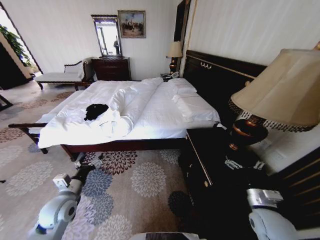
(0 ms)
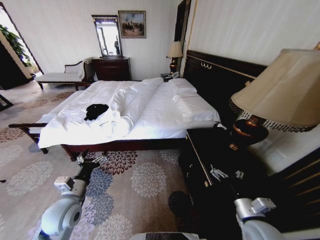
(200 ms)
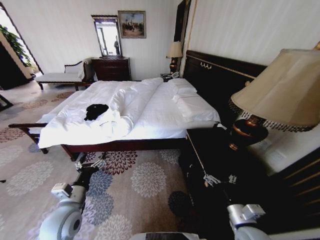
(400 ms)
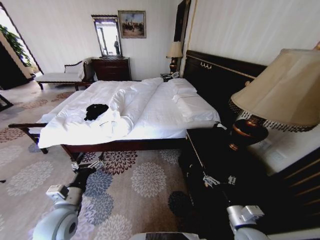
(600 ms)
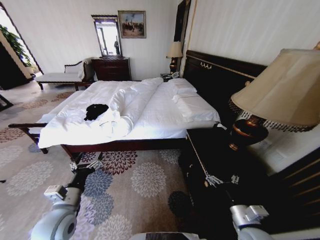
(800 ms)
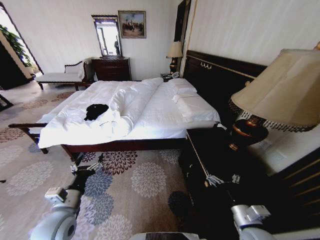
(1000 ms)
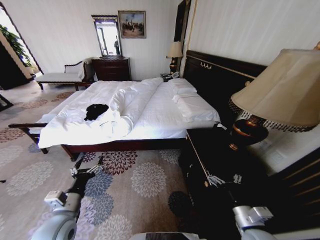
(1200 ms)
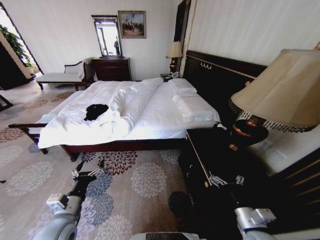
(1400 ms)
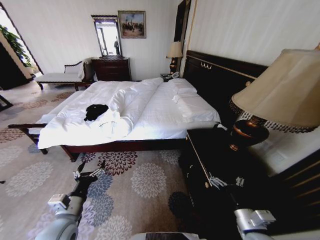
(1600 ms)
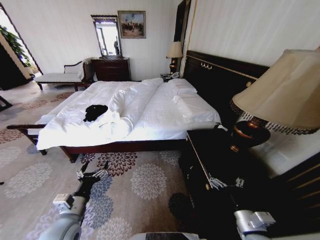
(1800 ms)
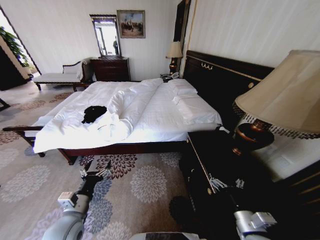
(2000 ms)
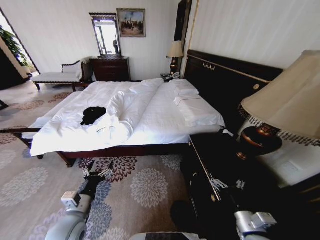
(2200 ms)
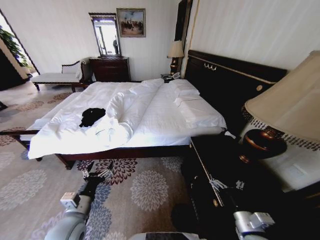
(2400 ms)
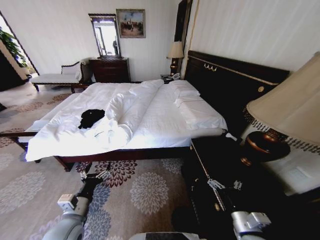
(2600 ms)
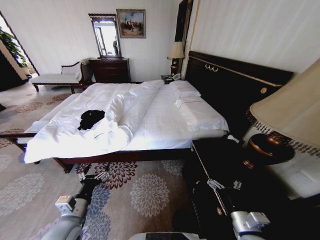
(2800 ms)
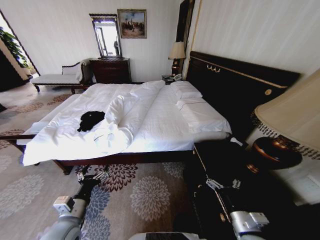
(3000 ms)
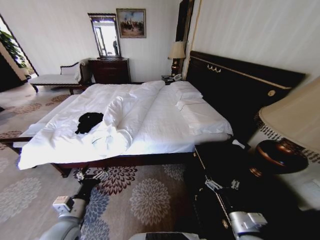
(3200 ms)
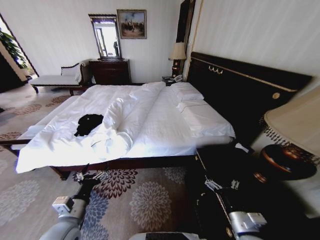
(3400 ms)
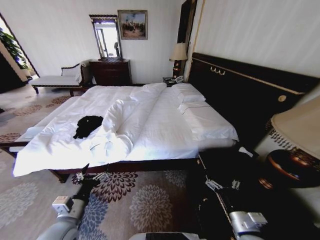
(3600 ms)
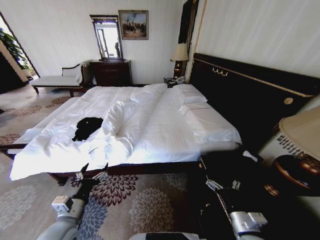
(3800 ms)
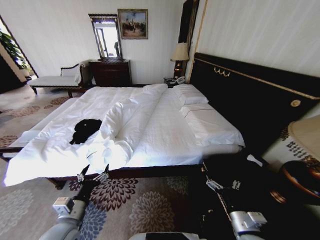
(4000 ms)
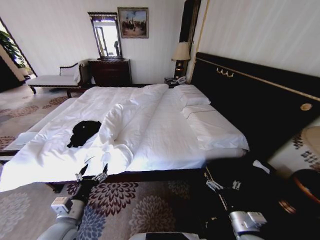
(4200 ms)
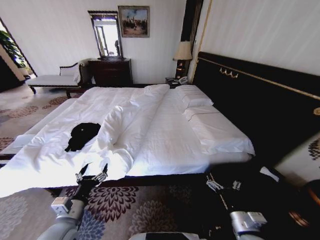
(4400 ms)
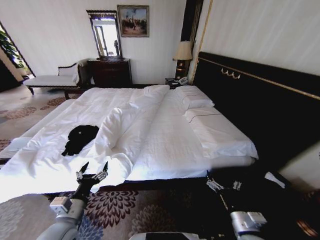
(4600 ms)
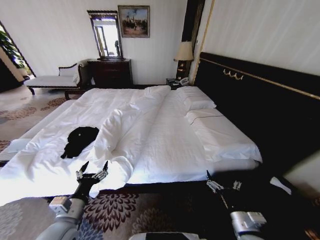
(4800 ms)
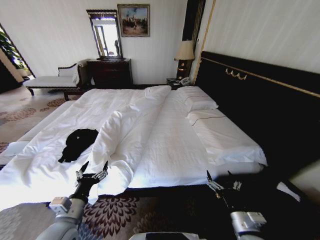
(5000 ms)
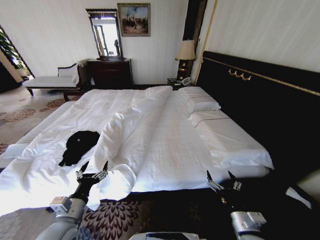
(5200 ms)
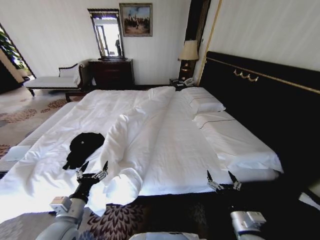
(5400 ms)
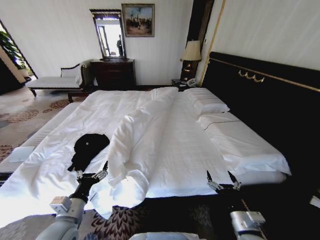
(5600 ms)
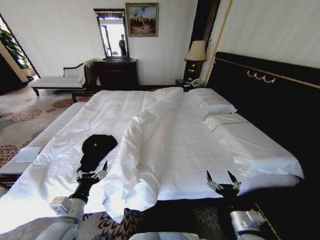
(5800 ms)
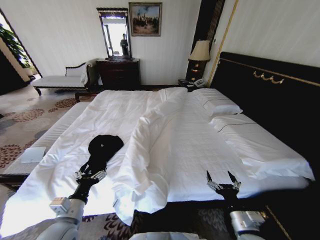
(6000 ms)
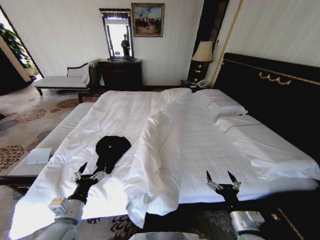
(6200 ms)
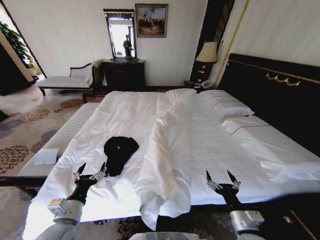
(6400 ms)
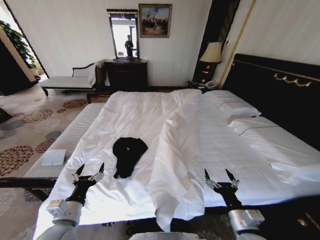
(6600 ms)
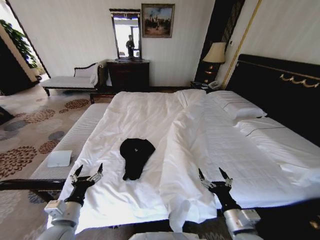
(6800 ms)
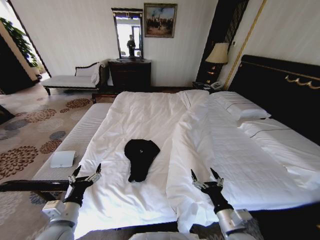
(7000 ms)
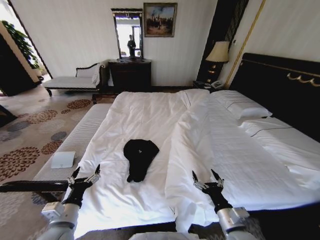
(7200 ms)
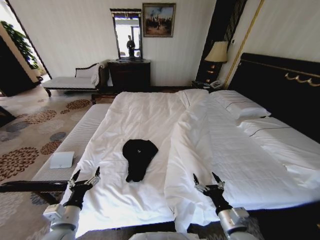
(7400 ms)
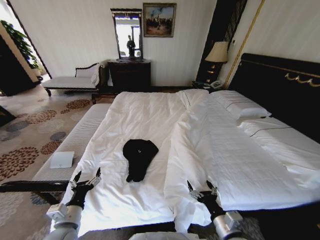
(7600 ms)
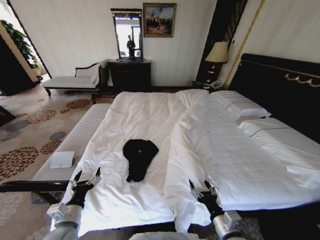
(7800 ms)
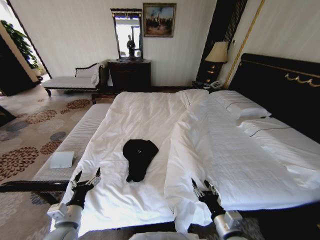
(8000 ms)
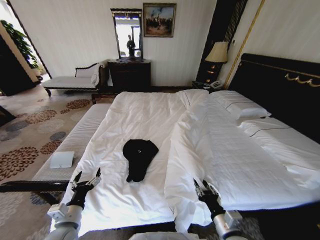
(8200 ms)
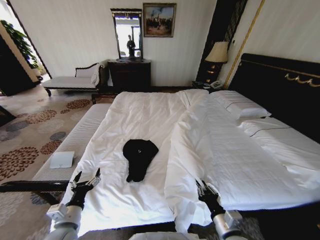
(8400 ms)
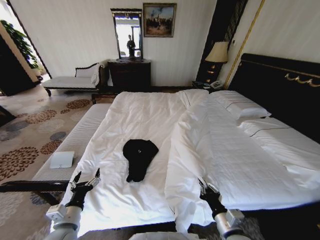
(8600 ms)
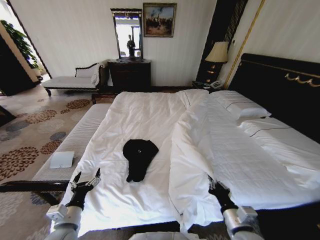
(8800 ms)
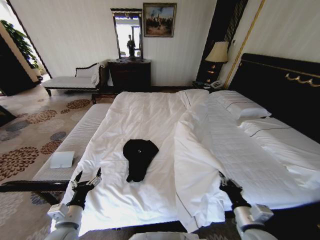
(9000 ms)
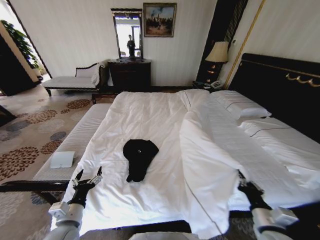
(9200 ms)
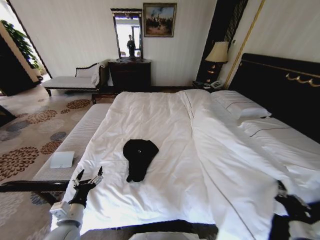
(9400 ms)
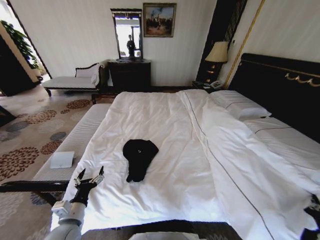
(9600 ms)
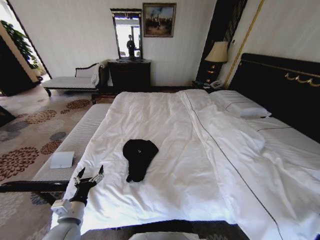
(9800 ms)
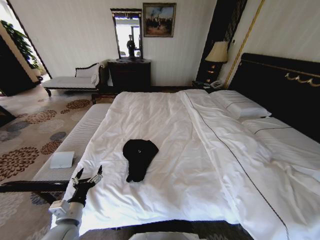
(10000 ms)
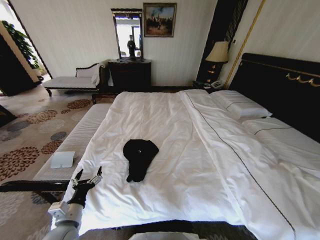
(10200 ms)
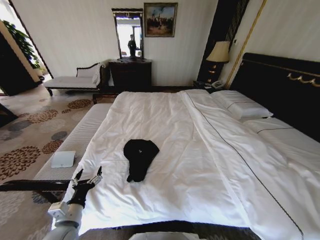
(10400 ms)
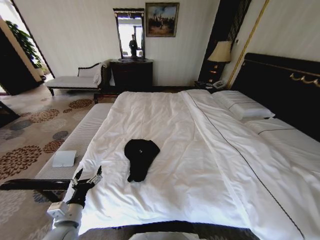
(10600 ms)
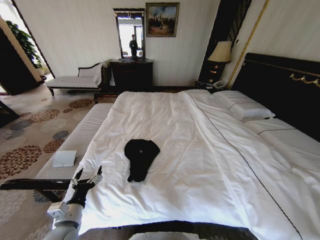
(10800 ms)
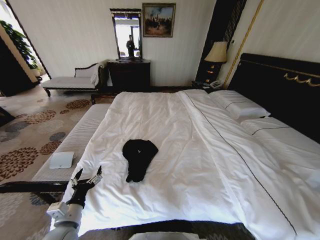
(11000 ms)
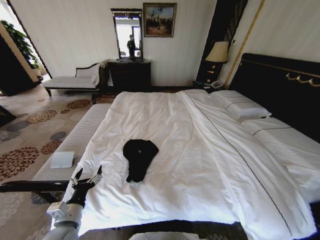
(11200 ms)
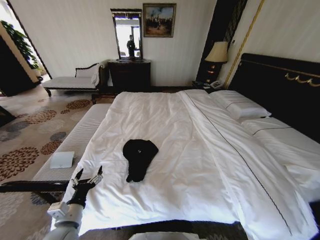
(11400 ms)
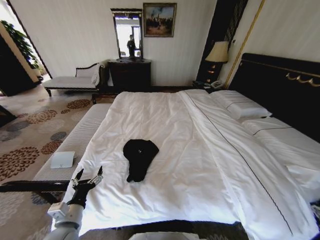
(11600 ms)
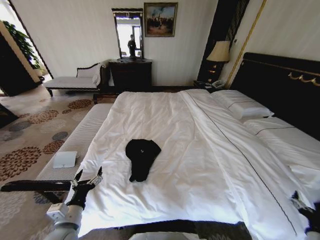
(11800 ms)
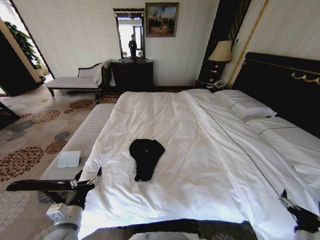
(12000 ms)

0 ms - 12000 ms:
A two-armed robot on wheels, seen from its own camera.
Task of the whole recording: Fold the clothes on the bed.
7600 ms - 9000 ms: The right gripper shifts some 5 cm to the right, and closes.
9000 ms - 10400 ms: The right gripper goes about 30 cm to the right.
10400 ms - 12000 ms: The right gripper moves to the left, some 15 cm, and opens up.

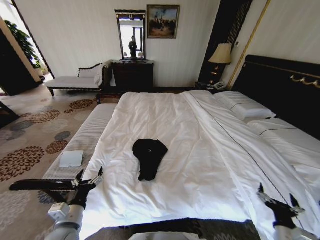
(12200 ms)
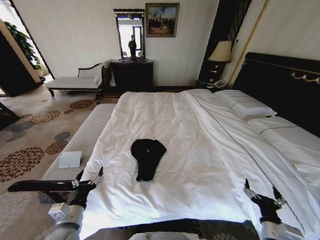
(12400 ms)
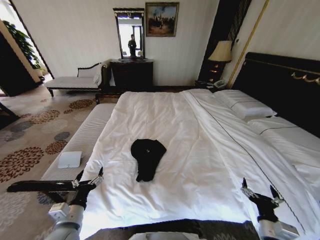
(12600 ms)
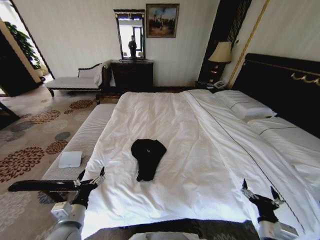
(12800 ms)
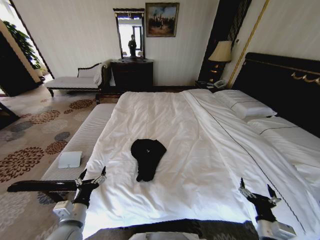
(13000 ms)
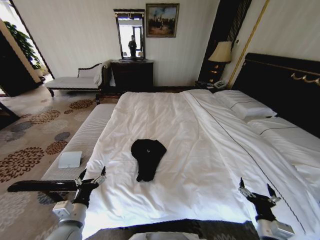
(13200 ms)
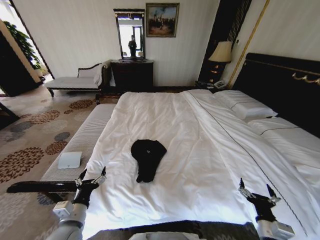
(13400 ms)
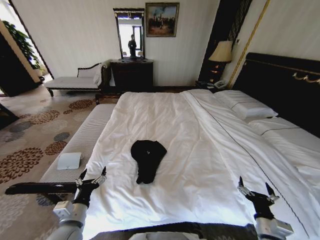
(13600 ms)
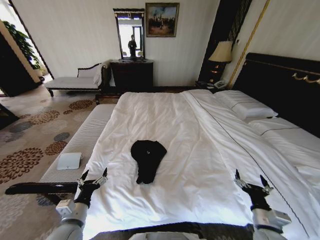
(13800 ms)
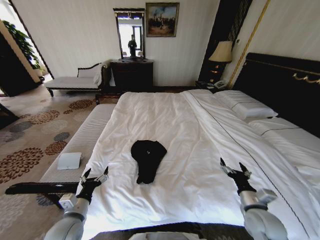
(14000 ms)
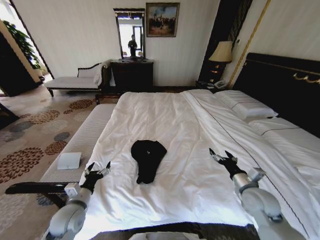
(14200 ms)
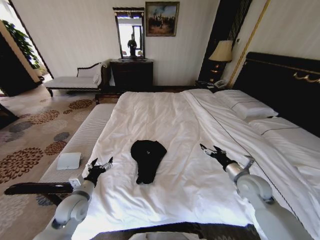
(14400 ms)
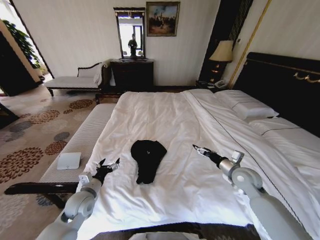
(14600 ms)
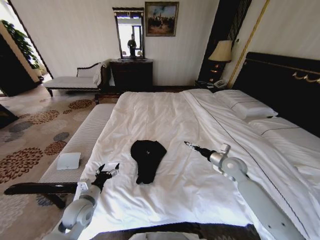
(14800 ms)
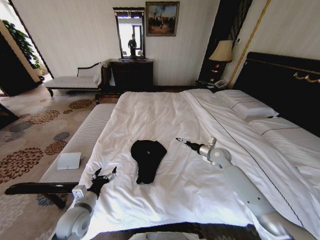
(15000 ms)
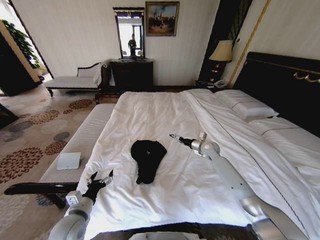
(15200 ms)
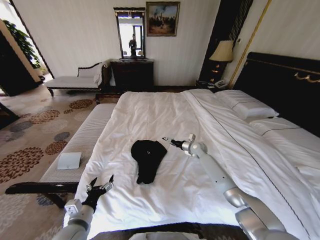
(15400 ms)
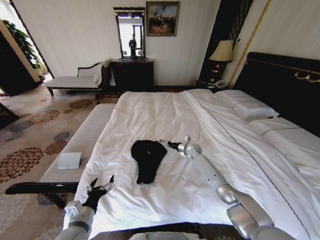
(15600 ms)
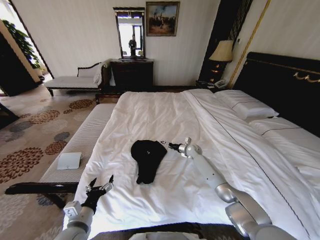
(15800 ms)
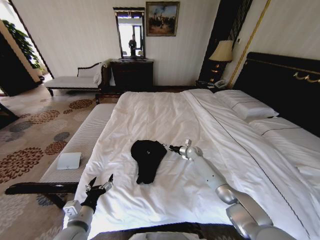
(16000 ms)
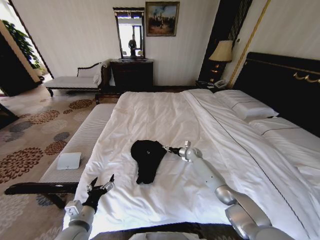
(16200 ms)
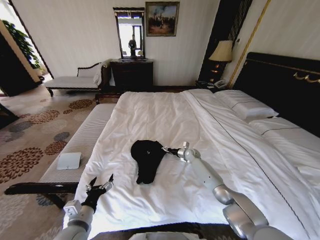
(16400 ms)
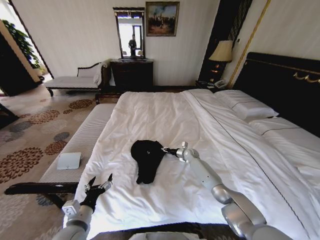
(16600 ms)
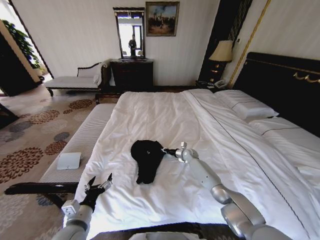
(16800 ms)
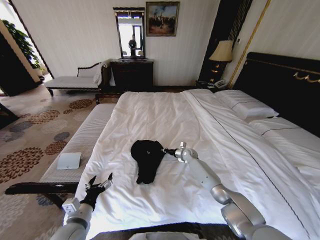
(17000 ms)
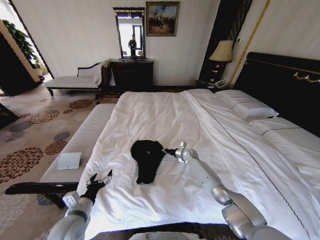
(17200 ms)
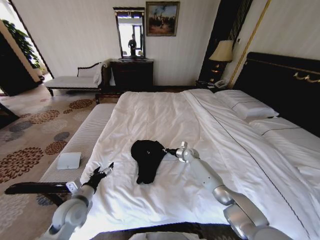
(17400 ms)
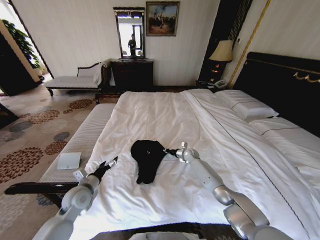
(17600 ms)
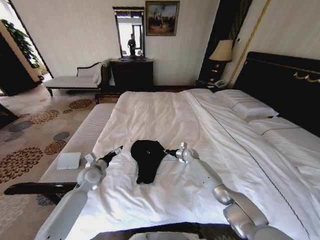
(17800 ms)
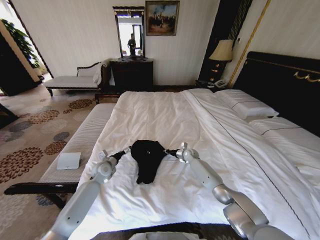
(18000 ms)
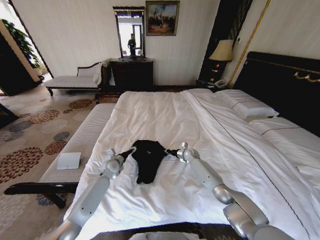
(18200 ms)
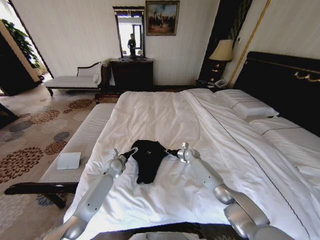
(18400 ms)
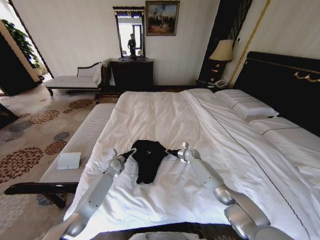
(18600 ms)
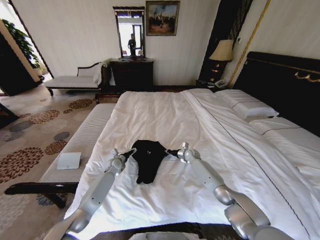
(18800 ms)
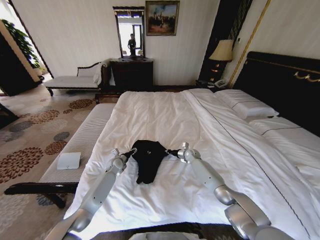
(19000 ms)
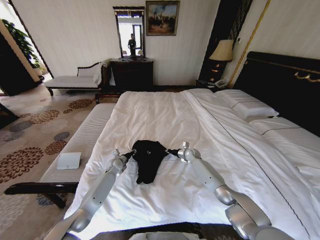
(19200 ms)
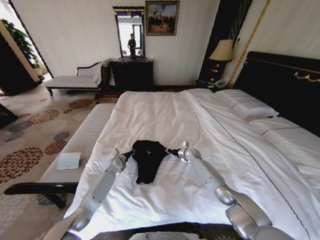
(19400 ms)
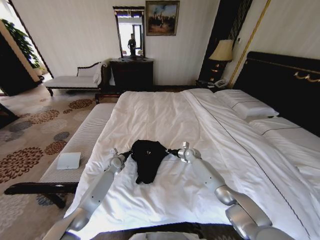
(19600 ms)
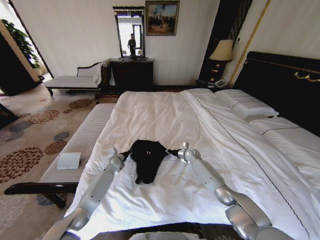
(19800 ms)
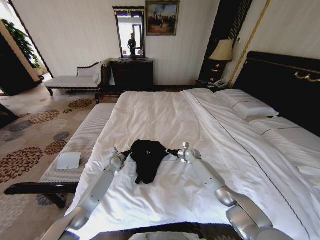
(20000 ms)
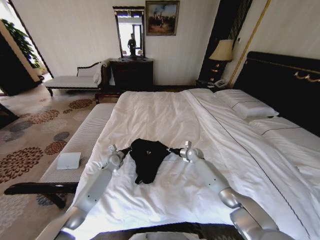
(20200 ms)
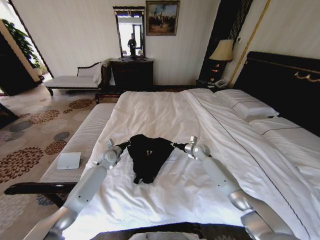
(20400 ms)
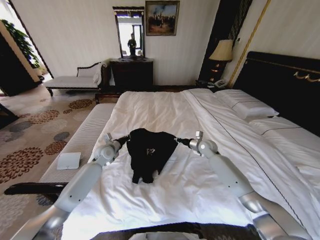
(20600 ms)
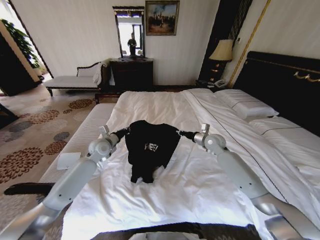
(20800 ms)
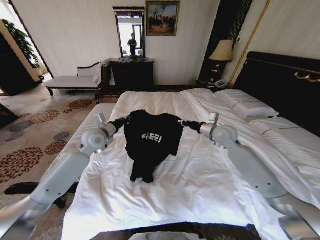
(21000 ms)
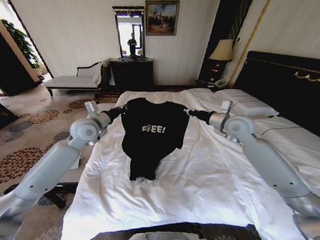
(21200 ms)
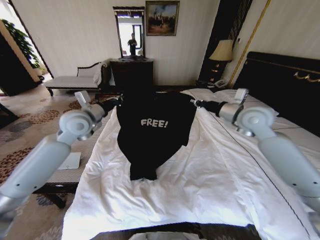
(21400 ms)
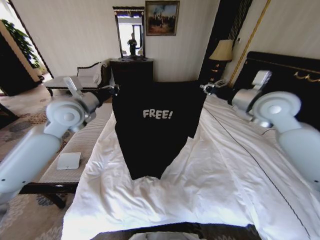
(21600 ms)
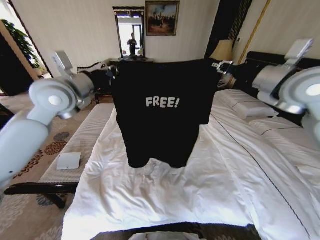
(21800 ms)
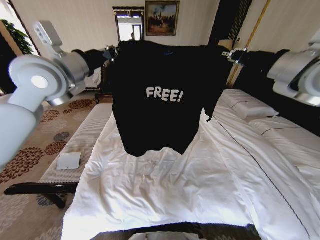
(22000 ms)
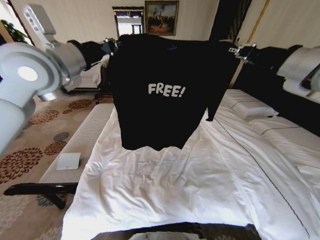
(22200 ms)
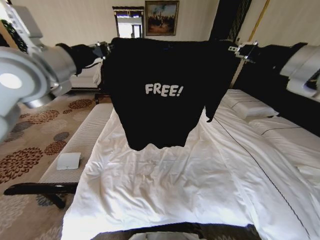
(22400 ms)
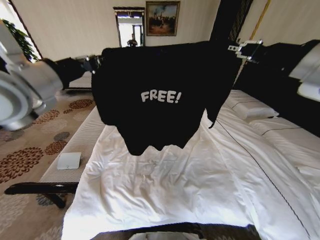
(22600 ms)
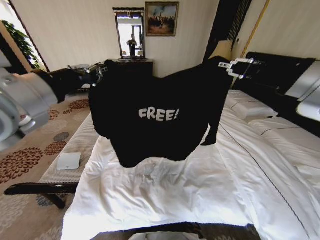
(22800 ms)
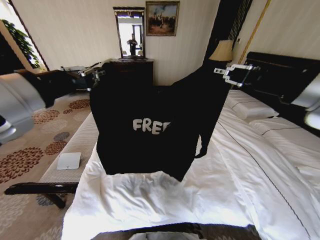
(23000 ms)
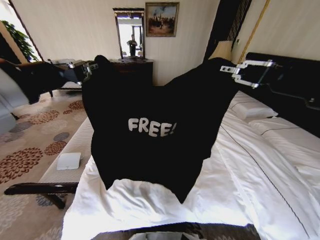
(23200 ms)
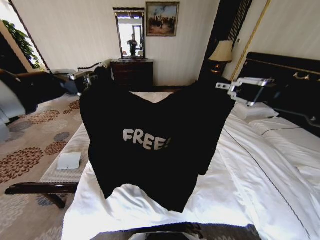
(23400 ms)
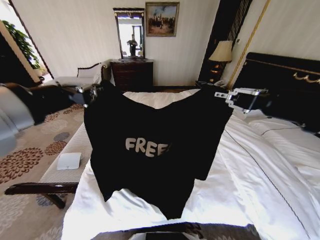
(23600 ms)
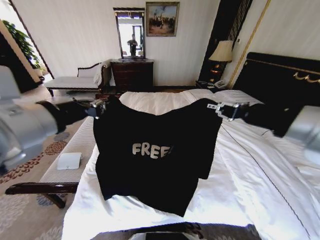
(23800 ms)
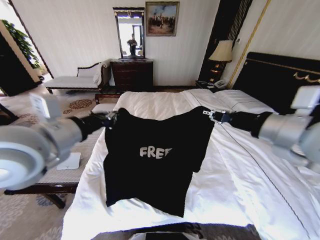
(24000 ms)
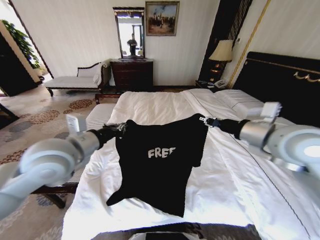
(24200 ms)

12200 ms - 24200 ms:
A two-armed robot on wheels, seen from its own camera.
Task of the whole recording: Fold the clothes on the bed.
12200 ms - 13800 ms: The right gripper shifts by roughly 5 cm.
13800 ms - 15200 ms: The right gripper moves forward, about 40 cm. Meanwhile the left gripper reaches some 10 cm forward, then returns.
15200 ms - 16600 ms: The right gripper moves downward and to the left, roughly 15 cm, and closes.
16600 ms - 18200 ms: The left gripper heads forward, covering about 30 cm, while the right gripper closes its fingers.
18200 ms - 19800 ms: The left gripper ends up roughly 5 cm from where it was, and closes its fingers.
19800 ms - 21200 ms: Both grippers travel together upward, approximately 30 cm.
21200 ms - 22600 ms: The grippers both shift upward and backward by about 25 cm.
22600 ms - 24200 ms: The right gripper moves downward, approximately 15 cm; the left gripper shifts roughly 15 cm downward and to the right.
